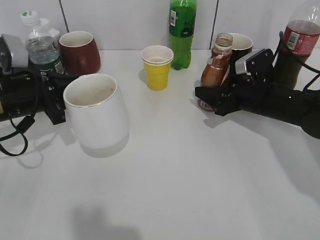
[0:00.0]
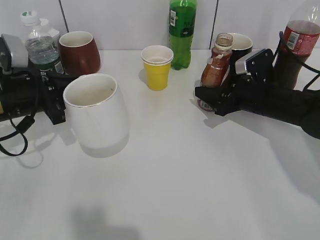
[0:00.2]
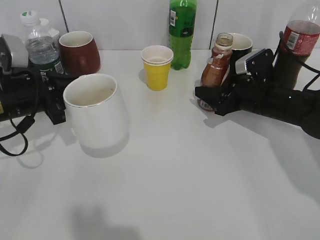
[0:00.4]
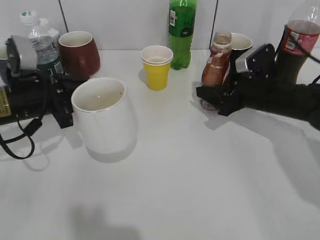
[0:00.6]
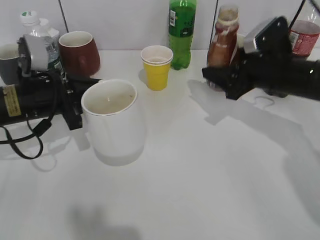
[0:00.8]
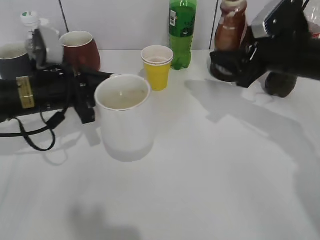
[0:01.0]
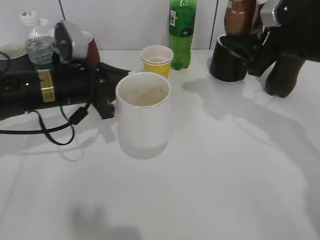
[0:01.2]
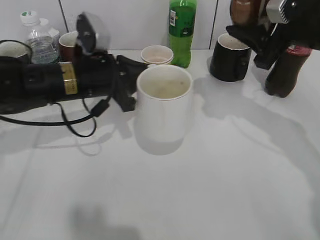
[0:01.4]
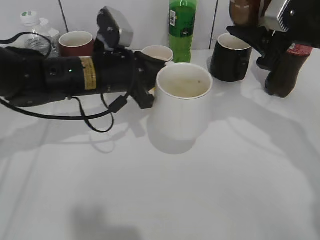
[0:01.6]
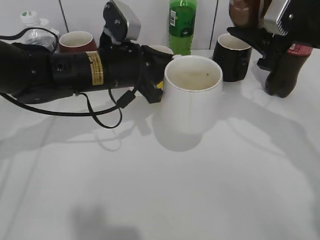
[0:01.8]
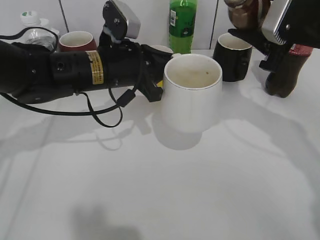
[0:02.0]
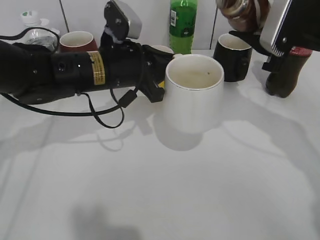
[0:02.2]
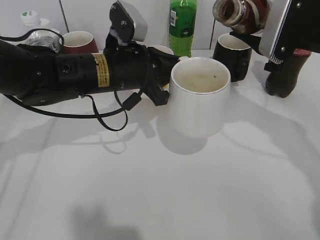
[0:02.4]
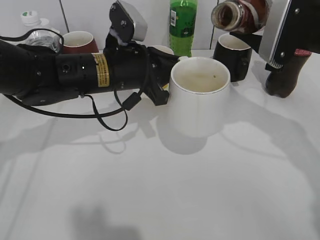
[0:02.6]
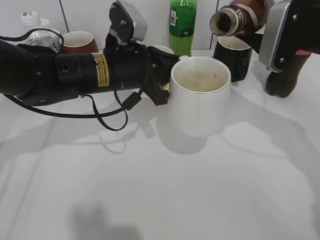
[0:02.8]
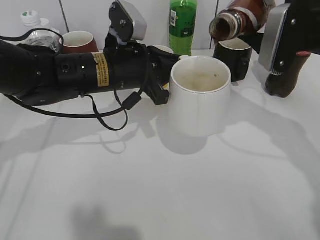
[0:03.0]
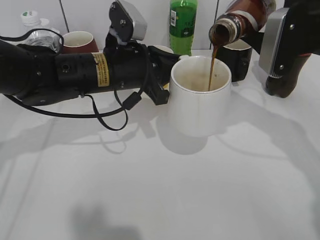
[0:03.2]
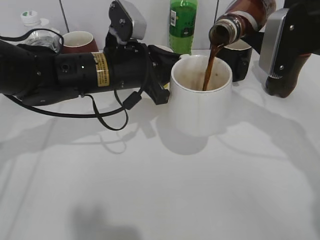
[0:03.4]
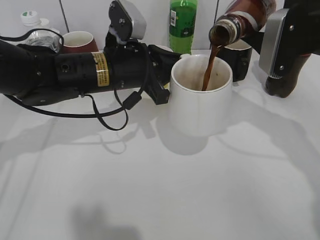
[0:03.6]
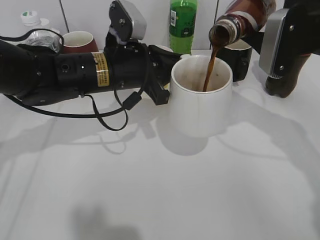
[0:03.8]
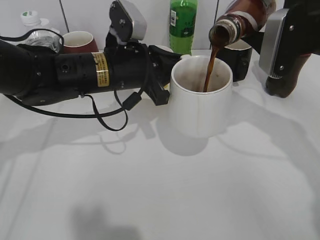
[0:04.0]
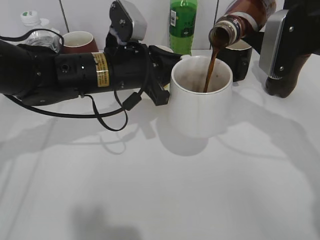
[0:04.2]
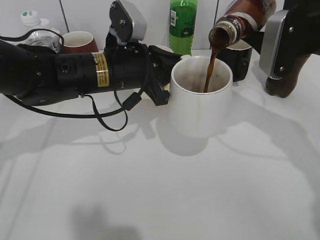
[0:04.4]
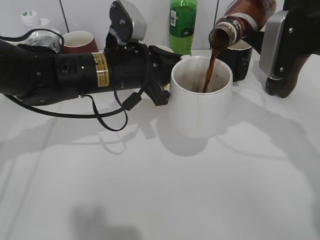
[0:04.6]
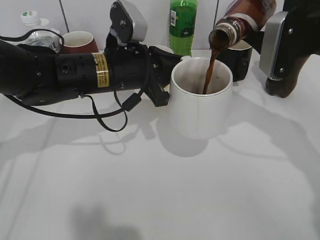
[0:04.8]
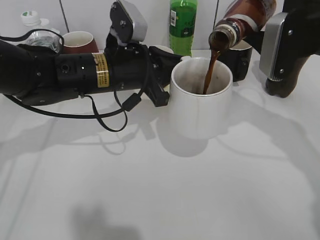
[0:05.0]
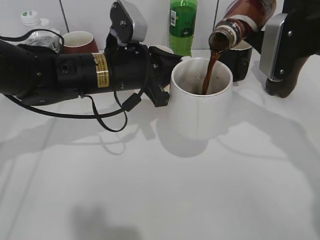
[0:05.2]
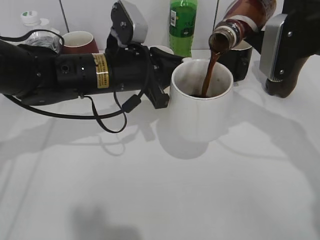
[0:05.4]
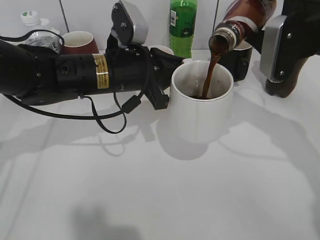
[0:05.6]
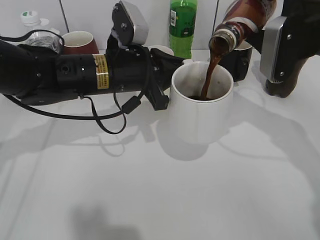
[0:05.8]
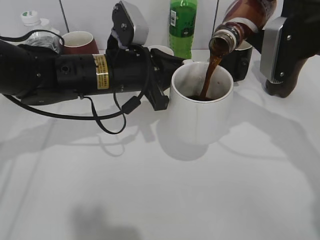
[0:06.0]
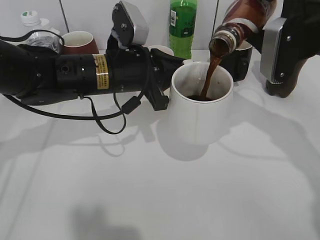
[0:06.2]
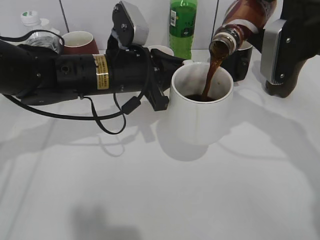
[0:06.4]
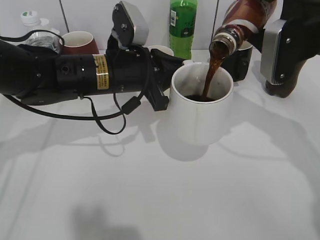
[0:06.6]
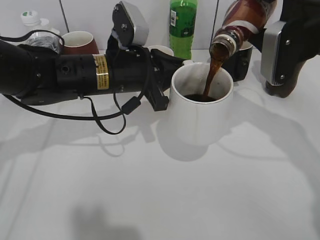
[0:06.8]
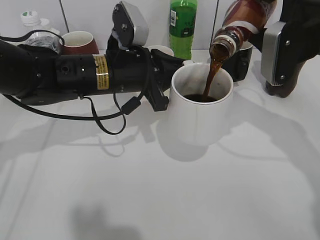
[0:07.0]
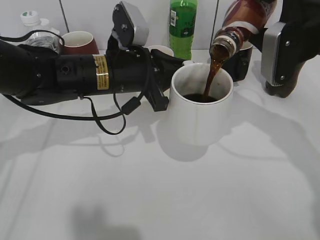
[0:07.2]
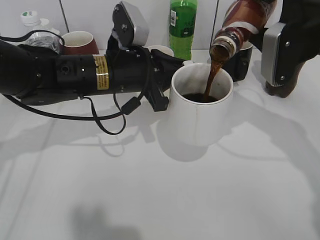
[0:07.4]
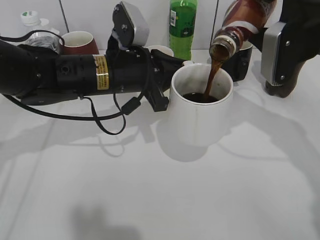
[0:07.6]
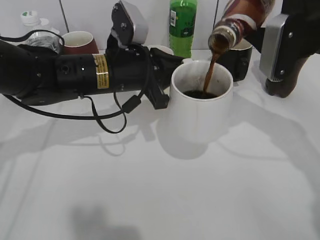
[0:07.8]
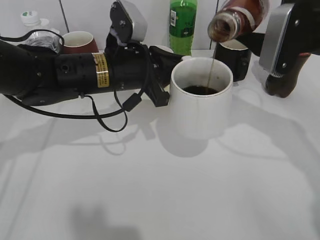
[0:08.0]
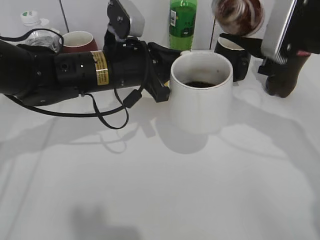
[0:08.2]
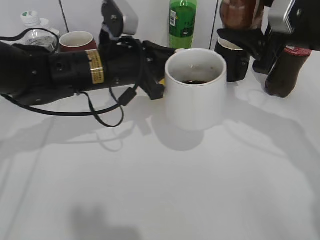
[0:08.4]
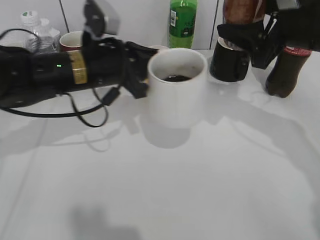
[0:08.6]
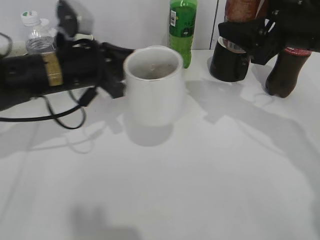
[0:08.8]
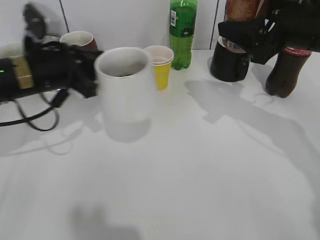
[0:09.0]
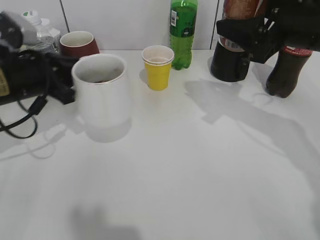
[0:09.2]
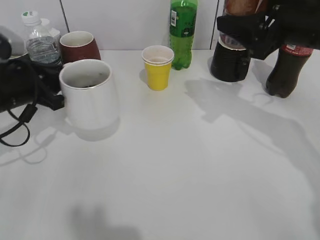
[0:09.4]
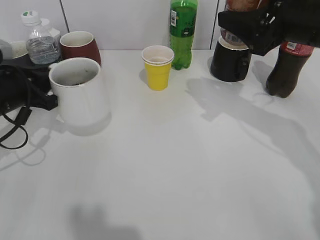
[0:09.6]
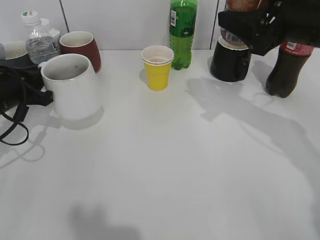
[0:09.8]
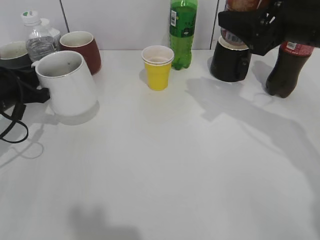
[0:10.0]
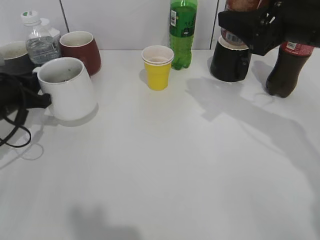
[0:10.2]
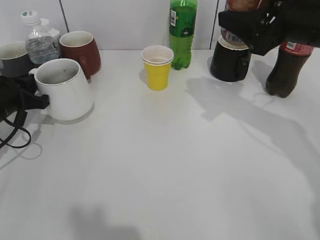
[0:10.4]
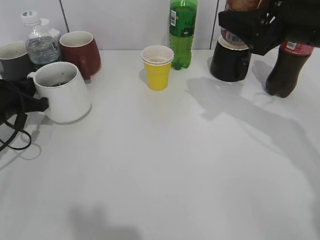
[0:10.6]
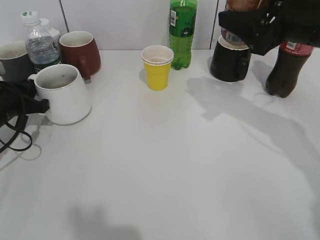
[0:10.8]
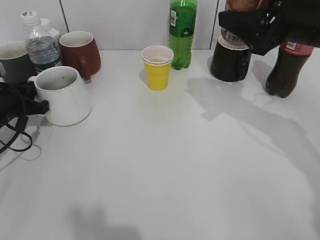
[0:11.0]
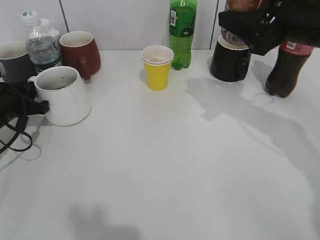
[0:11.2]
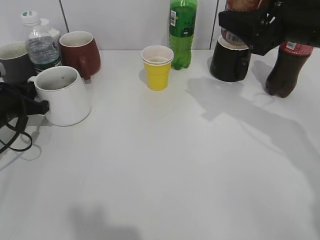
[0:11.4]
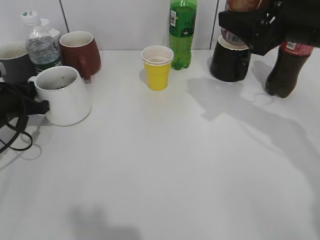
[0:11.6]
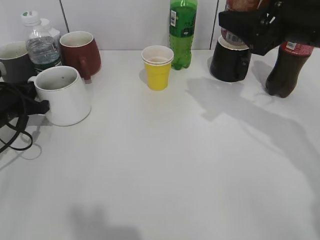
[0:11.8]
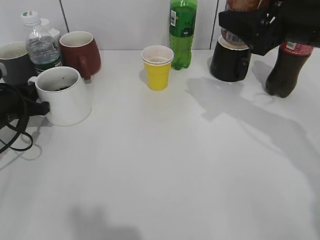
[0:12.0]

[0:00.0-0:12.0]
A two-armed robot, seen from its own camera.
Step, 0:00.8 to 0:08.0: Pour the coffee from bottle to cup with right gripper.
0:00.0 to 0:01.6: The left gripper goes approximately 15 cm to the right; the right gripper heads upward, covering approximately 15 cm.
0:03.0 to 0:07.6: The grippers make only small movements.
0:07.6 to 0:09.0: The left gripper shifts some 10 cm to the left.
0:09.0 to 0:10.4: The left gripper moves to the left and downward, about 10 cm.
0:10.4 to 0:12.0: The grippers stay close to where they were, moving slightly.

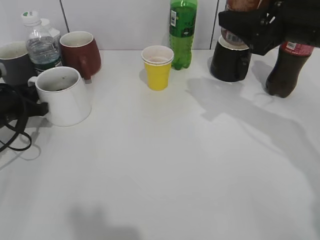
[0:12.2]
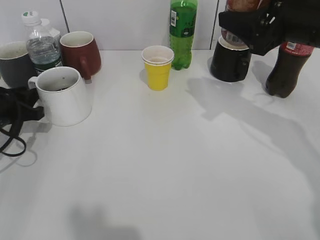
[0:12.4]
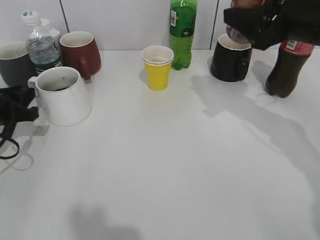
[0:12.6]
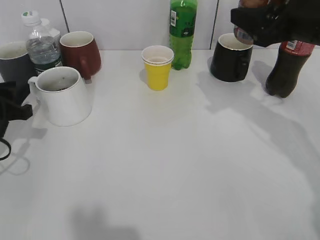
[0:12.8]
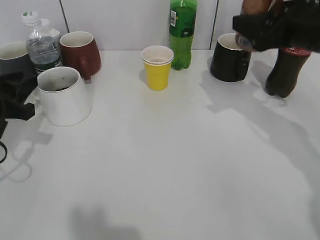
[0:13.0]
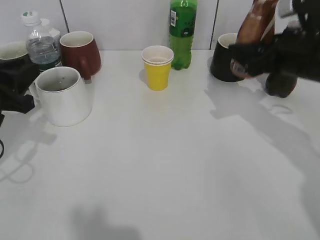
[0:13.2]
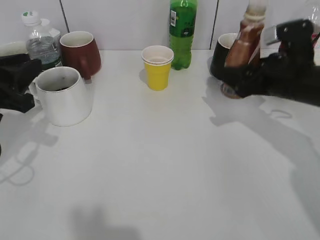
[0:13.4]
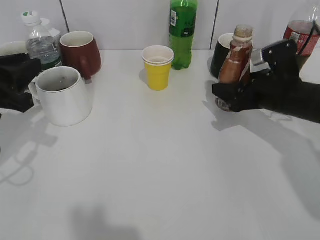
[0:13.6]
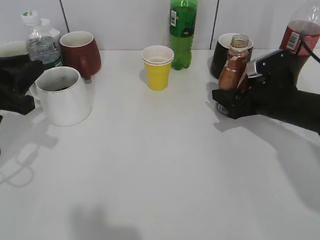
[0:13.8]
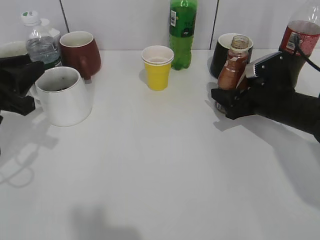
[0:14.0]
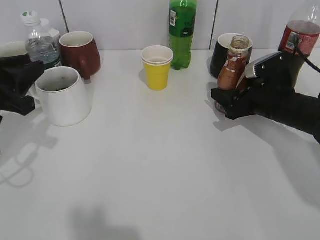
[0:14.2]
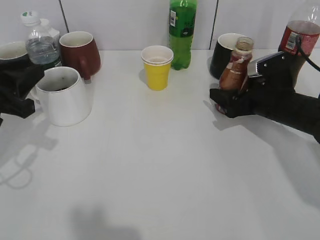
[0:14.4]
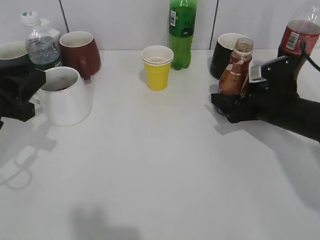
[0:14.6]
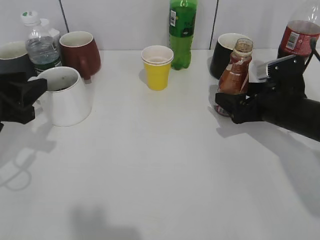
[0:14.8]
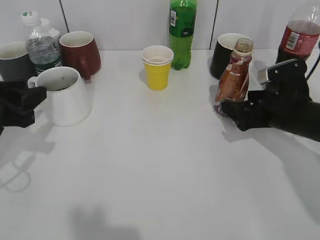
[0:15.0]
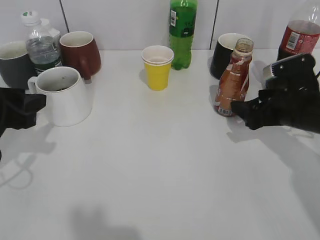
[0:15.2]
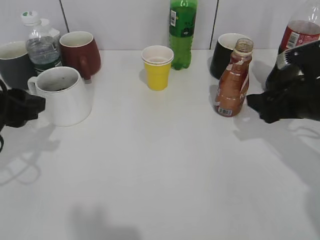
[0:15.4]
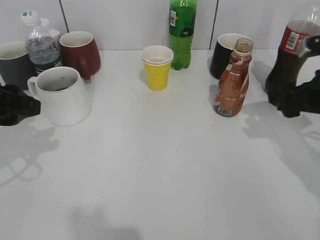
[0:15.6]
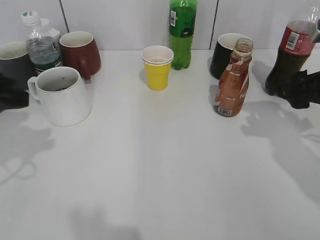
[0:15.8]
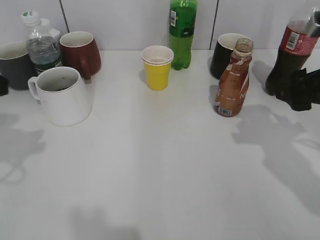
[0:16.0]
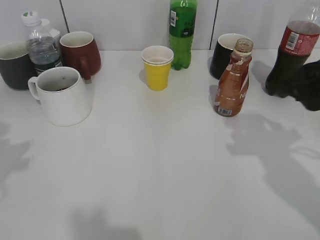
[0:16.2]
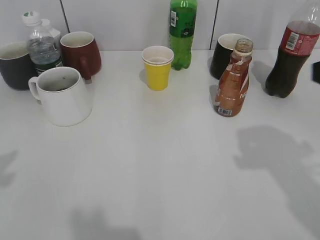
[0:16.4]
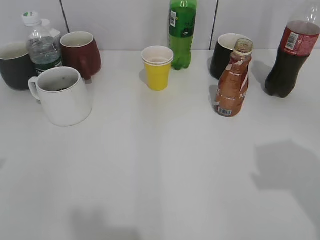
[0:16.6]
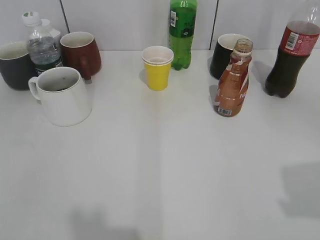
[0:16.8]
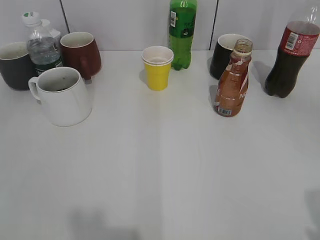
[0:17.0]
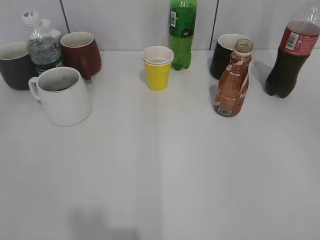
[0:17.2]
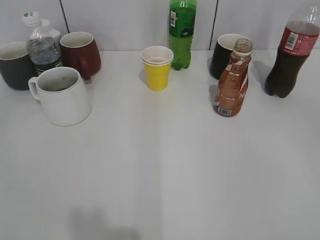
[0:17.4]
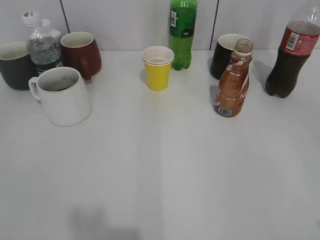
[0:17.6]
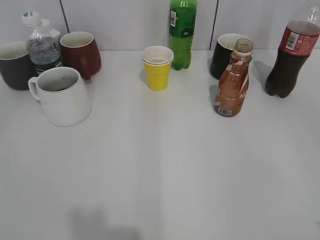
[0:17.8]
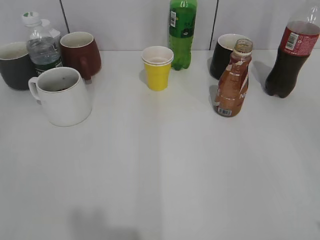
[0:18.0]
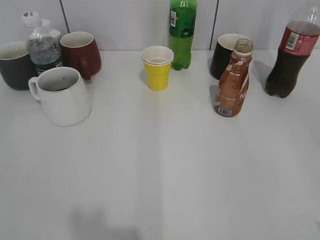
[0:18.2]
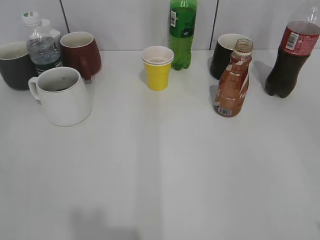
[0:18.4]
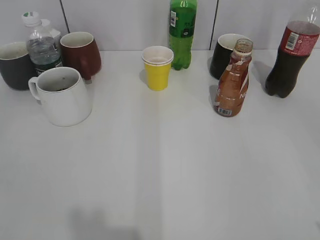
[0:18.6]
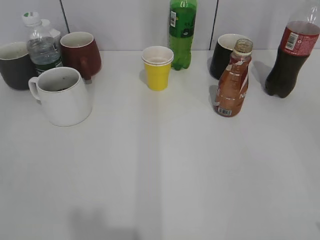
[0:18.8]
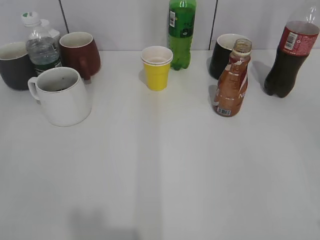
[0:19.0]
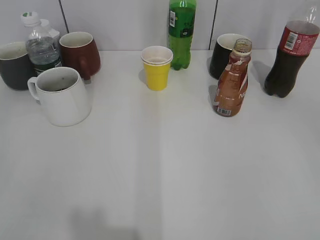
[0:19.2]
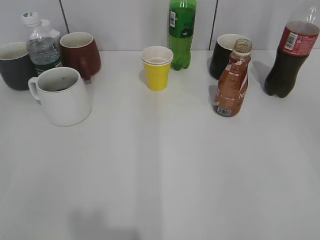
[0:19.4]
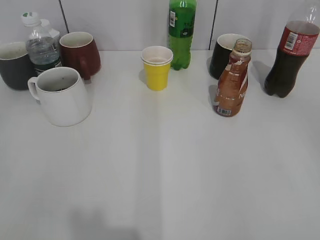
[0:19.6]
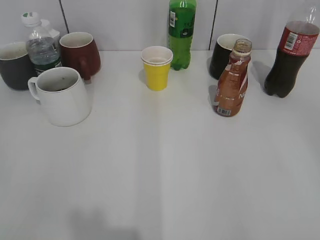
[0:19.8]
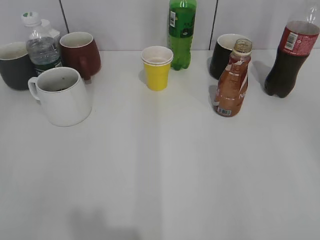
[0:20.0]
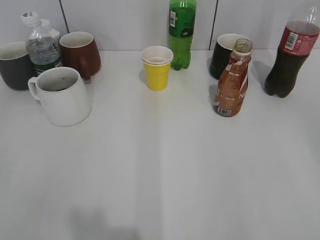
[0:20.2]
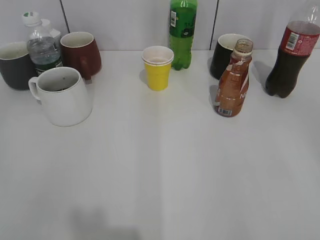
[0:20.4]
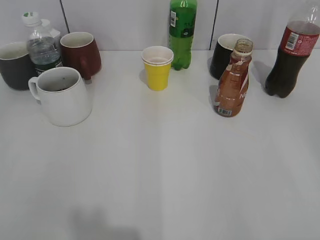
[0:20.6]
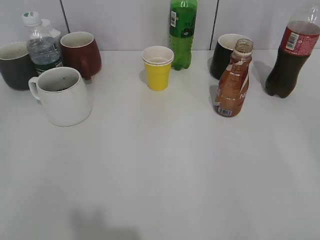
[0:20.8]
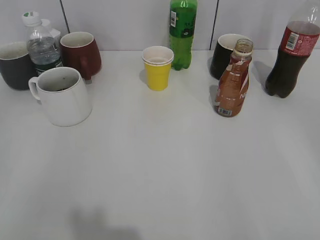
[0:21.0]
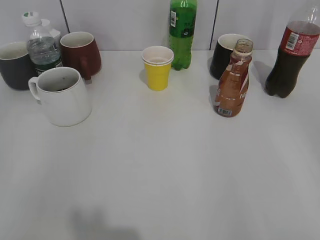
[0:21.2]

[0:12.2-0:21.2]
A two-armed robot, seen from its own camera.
Step, 0:12.8 to 0:15.0: Place the coffee bottle on the table with right gripper.
0:12.2 to 0:13.8: The right gripper travels downward by some 15 cm. The left gripper heads upward and backward, covering about 10 cm.
0:13.8 to 0:15.2: The left gripper opens. Meanwhile the right gripper opens.
0:15.2 to 0:16.6: The right gripper travels upward and backward by some 25 cm, and closes; the left gripper heads backward and upward, covering some 20 cm.
0:19.8 to 0:21.2: Neither gripper changes place.
